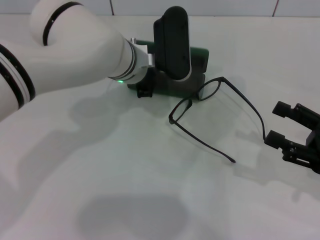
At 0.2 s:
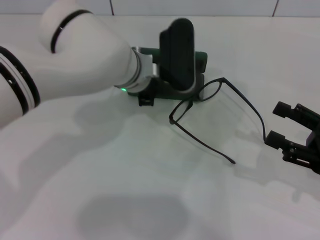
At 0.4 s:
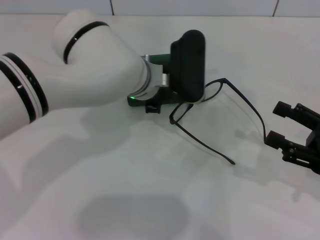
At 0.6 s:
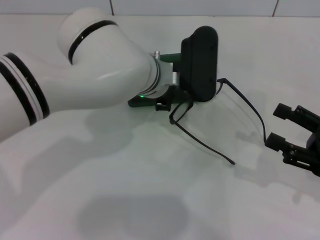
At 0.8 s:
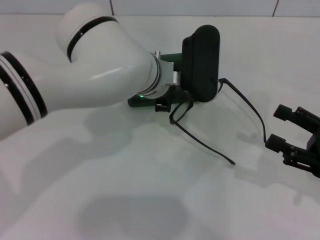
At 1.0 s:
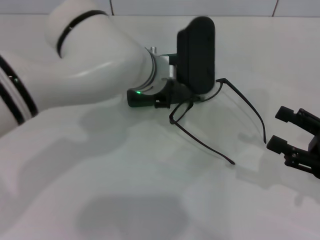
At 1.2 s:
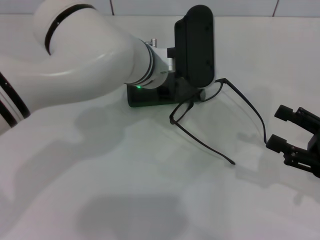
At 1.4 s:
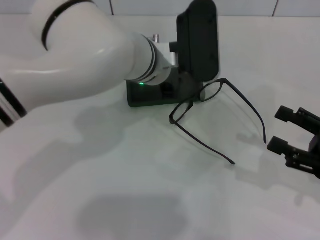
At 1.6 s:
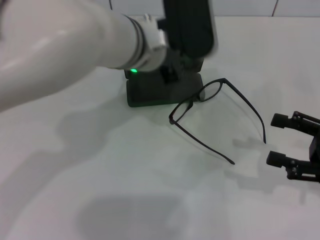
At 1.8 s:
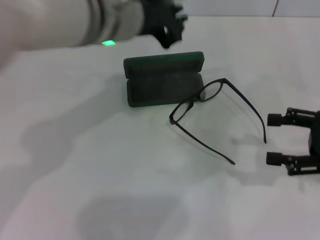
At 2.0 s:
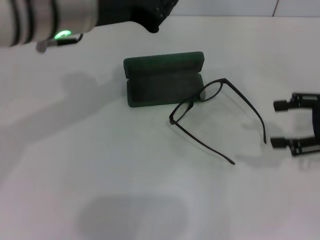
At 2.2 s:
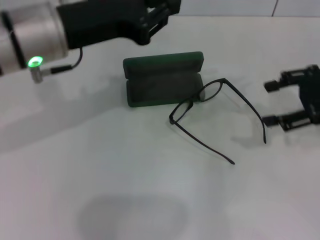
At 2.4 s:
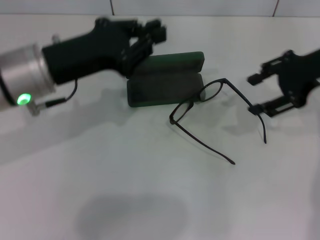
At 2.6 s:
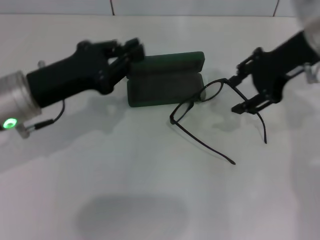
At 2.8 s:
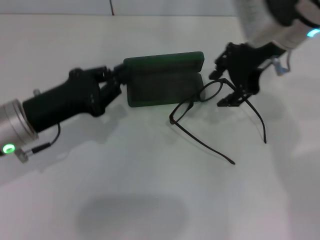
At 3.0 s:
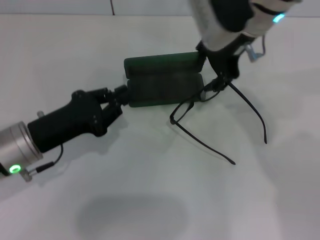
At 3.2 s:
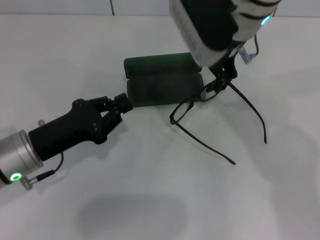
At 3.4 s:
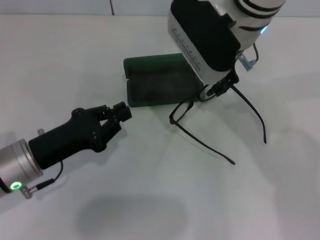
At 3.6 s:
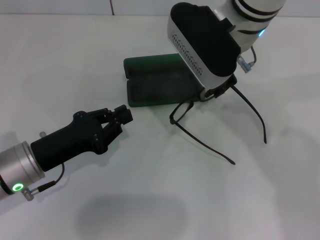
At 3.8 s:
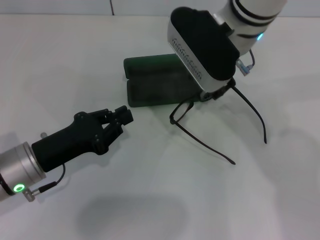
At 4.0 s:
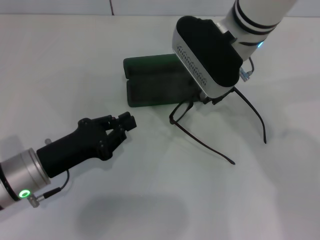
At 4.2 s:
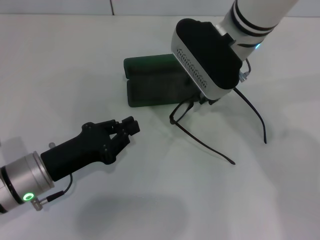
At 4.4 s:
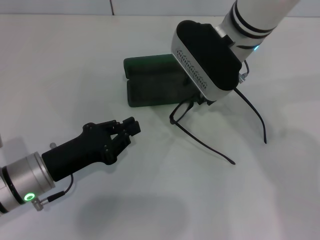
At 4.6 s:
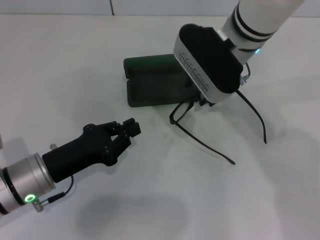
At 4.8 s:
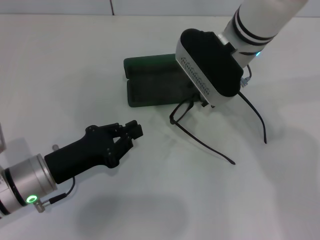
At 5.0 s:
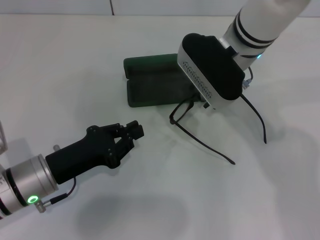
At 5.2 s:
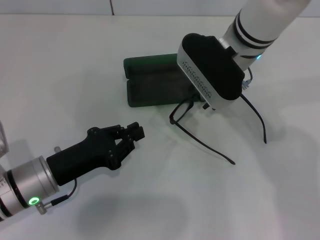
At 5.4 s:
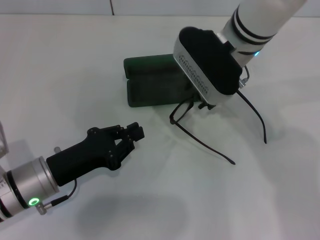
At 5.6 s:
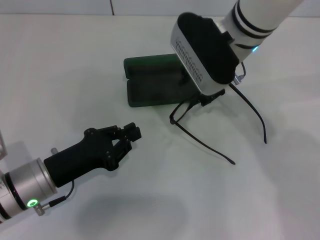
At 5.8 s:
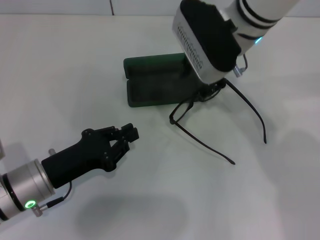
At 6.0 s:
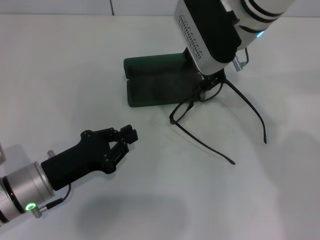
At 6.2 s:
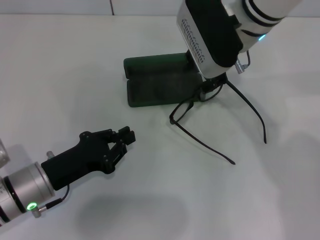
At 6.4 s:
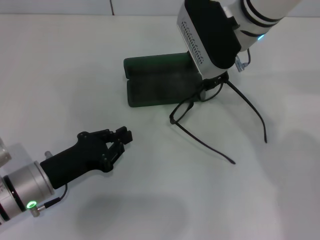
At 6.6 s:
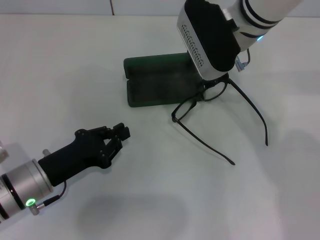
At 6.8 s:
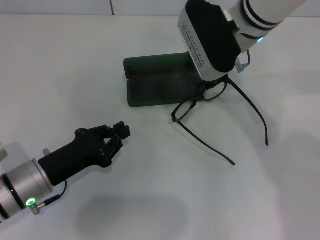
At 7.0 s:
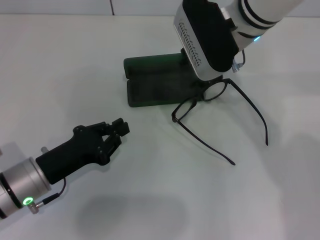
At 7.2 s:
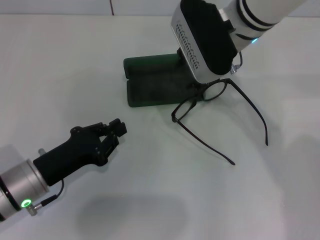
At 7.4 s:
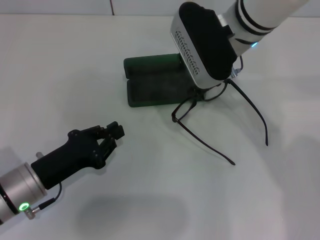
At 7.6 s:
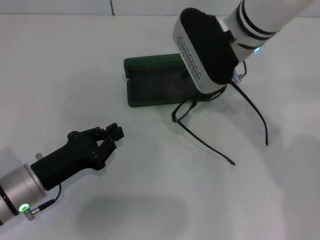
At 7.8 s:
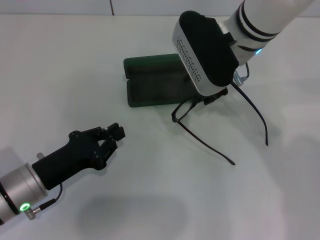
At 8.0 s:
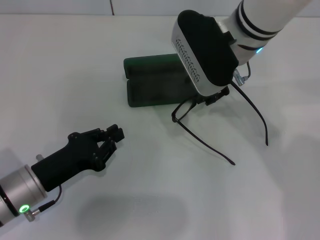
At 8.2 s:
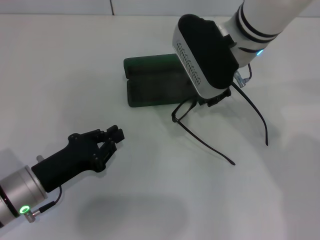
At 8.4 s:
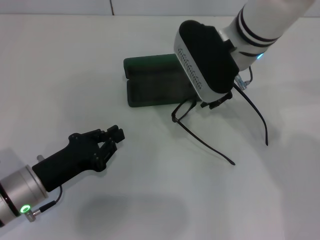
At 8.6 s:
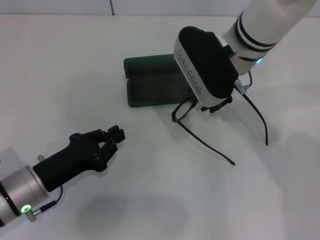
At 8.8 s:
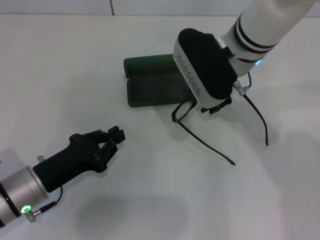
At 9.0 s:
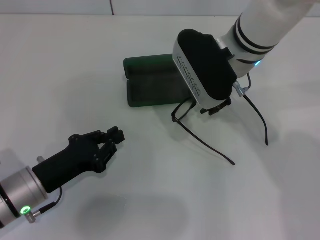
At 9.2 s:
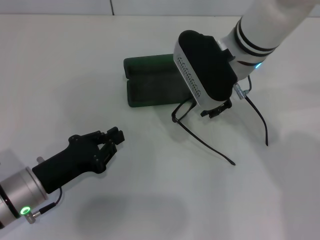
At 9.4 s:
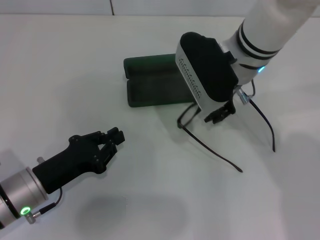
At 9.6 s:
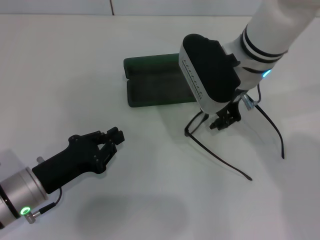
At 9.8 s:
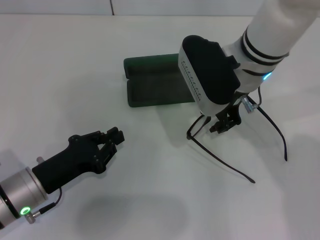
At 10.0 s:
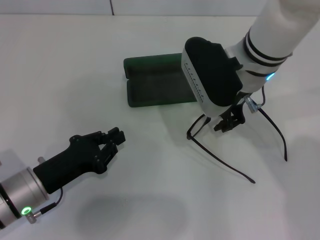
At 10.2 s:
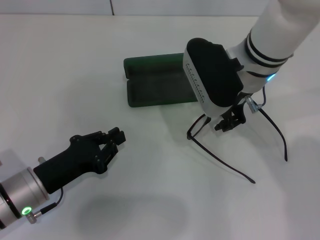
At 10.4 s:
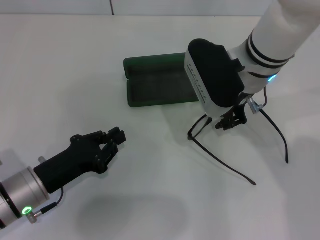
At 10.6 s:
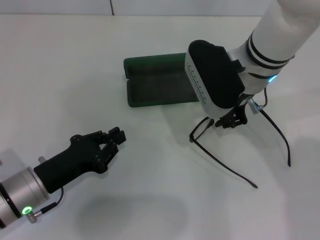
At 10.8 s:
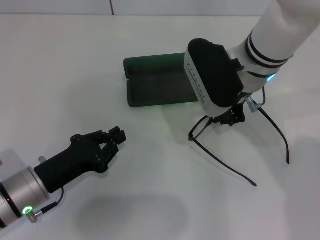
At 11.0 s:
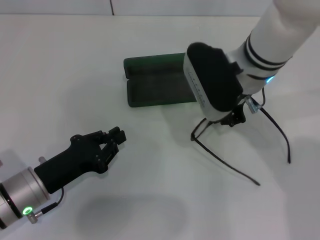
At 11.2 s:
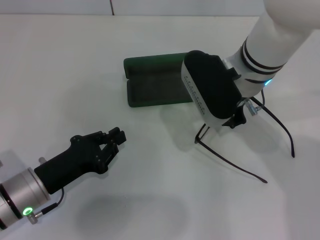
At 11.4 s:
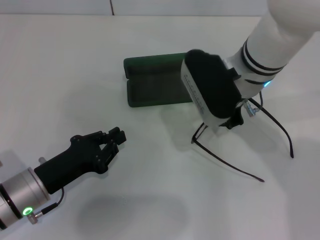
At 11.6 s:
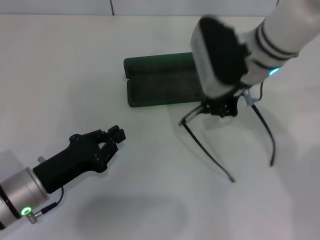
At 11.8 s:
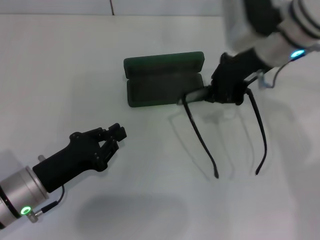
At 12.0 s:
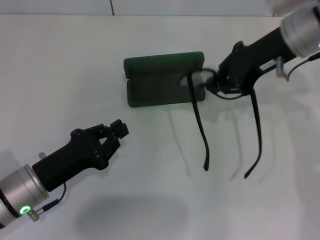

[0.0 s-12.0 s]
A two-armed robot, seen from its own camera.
Step, 0.6 to 11.0 s: Grab the eyeglass frame with your right hand.
0.0 to 1.6 s: The left gripper is displaced upward by approximately 5 cm.
1.6 to 3.0 s: The left gripper shifts some 25 cm to the left, downward and backward; the right gripper goes roughly 30 cm to the left, forward and upward.
3.0 to 4.4 s: The right gripper shifts by some 5 cm.
4.4 to 10.4 s: The grippers stay close to where they were, moving slightly.
10.4 to 12.0 s: The right gripper heads to the right and upward, covering about 10 cm, and closes.

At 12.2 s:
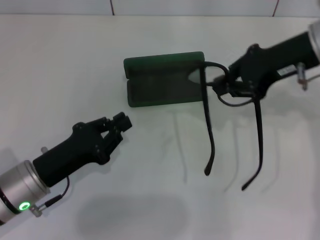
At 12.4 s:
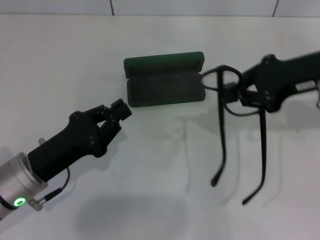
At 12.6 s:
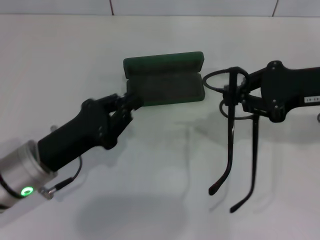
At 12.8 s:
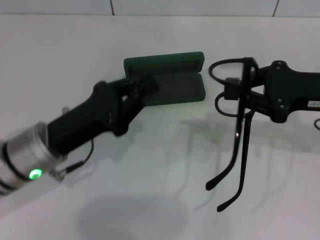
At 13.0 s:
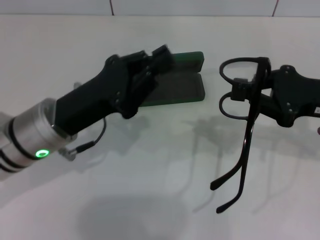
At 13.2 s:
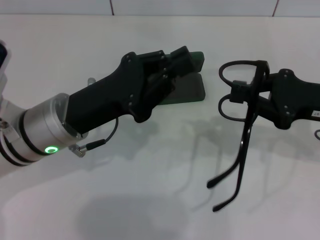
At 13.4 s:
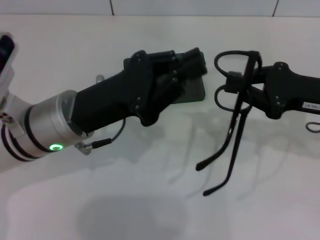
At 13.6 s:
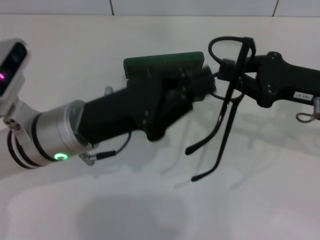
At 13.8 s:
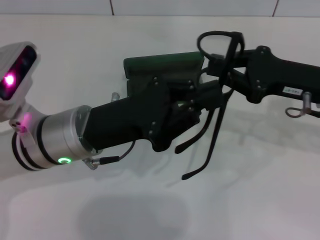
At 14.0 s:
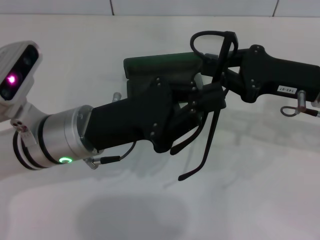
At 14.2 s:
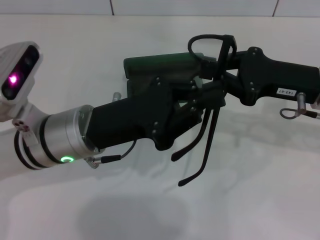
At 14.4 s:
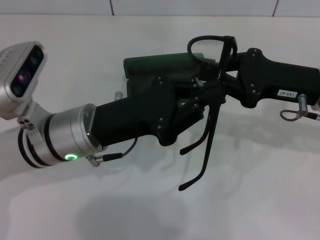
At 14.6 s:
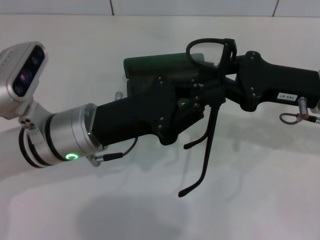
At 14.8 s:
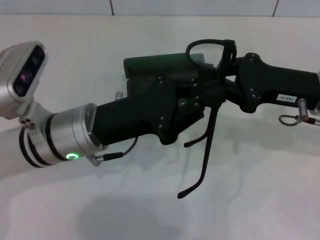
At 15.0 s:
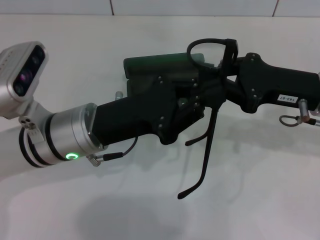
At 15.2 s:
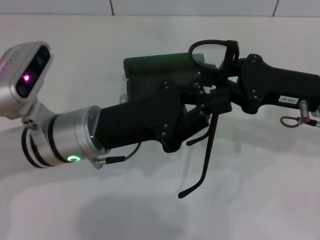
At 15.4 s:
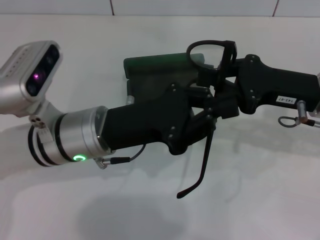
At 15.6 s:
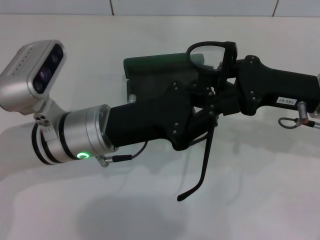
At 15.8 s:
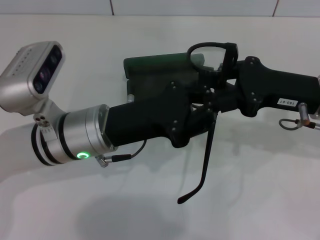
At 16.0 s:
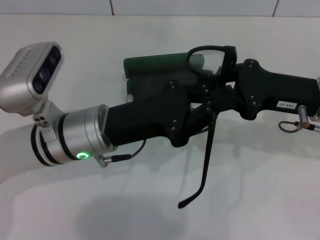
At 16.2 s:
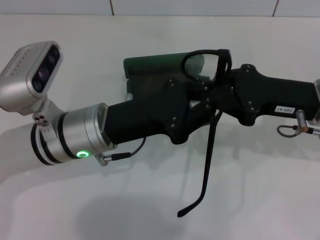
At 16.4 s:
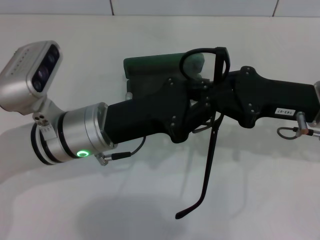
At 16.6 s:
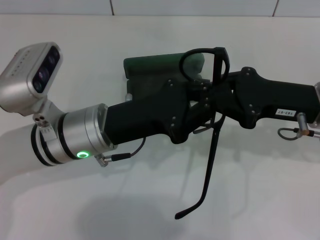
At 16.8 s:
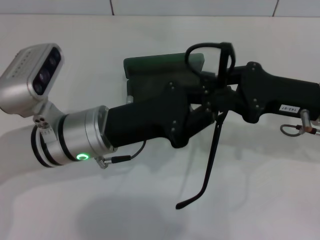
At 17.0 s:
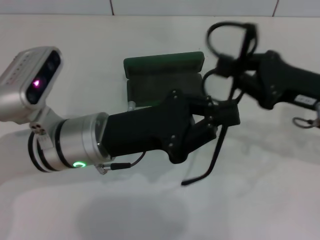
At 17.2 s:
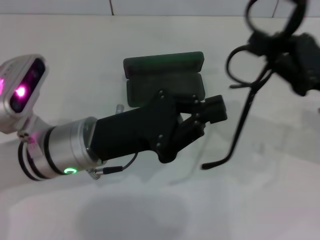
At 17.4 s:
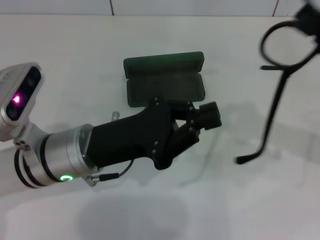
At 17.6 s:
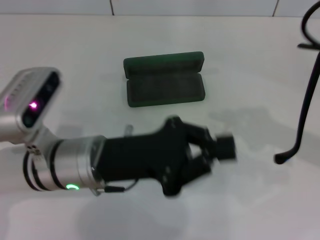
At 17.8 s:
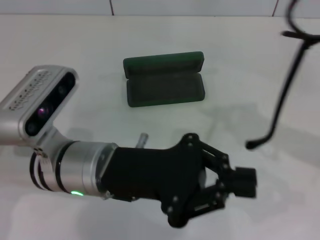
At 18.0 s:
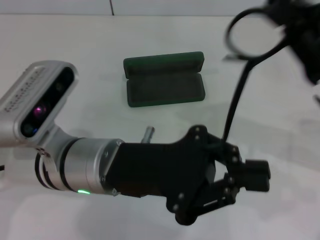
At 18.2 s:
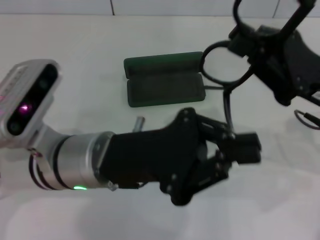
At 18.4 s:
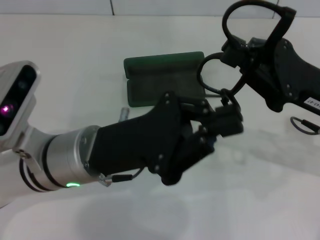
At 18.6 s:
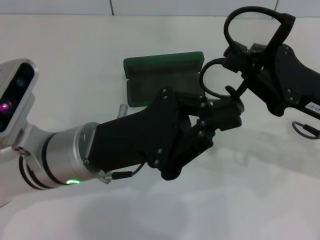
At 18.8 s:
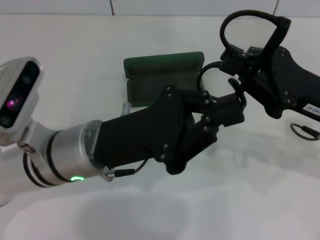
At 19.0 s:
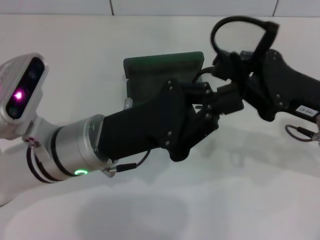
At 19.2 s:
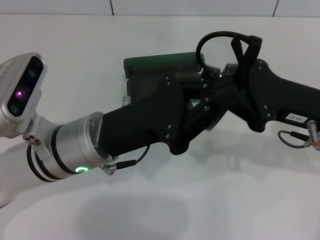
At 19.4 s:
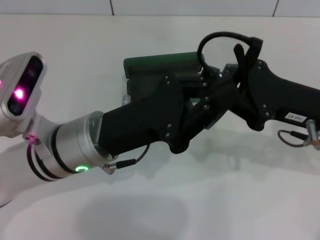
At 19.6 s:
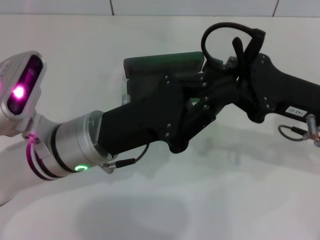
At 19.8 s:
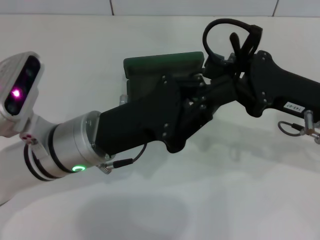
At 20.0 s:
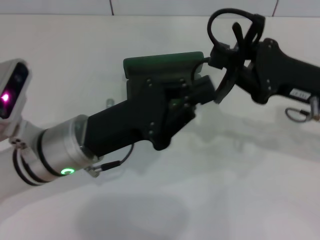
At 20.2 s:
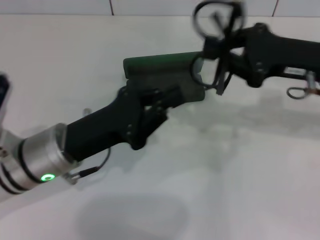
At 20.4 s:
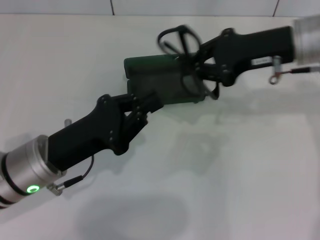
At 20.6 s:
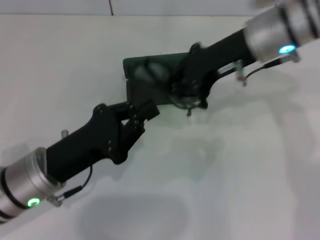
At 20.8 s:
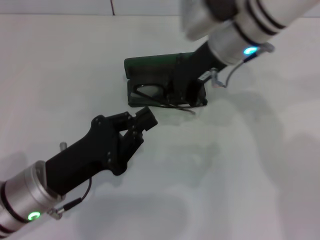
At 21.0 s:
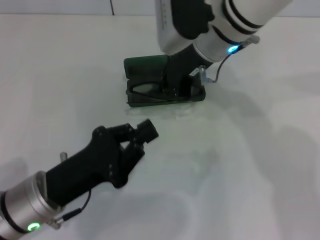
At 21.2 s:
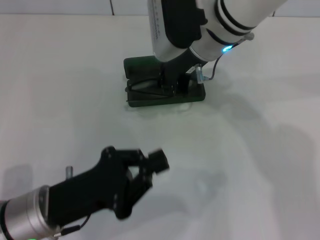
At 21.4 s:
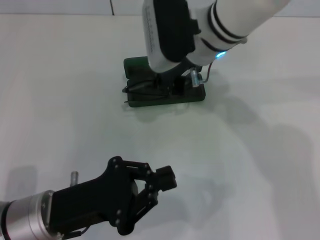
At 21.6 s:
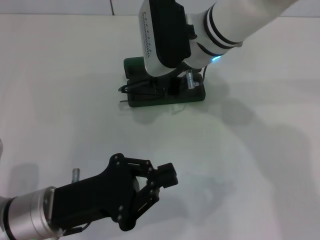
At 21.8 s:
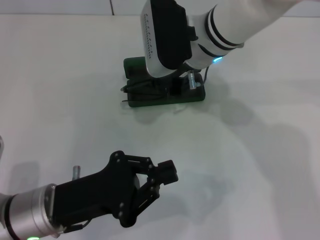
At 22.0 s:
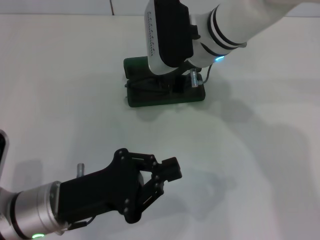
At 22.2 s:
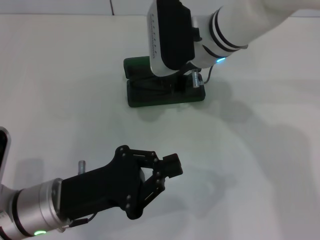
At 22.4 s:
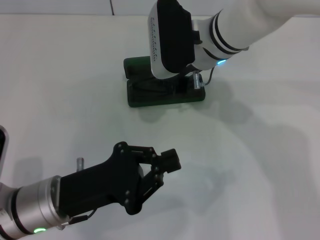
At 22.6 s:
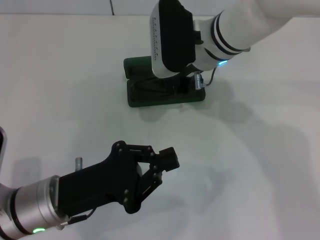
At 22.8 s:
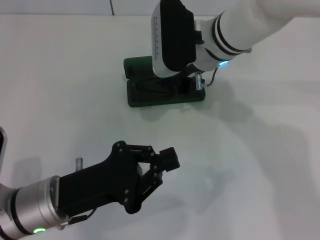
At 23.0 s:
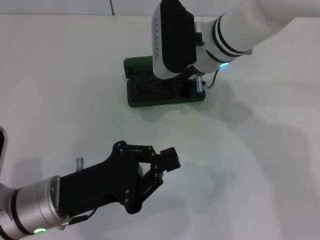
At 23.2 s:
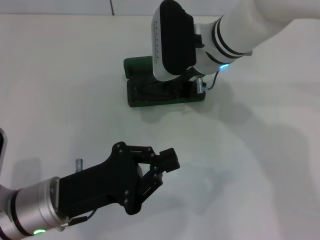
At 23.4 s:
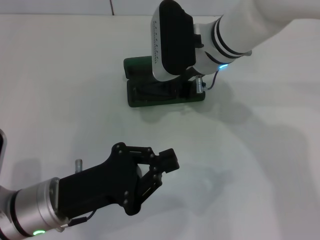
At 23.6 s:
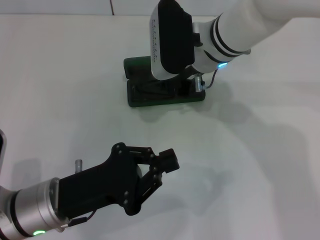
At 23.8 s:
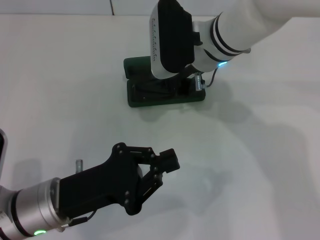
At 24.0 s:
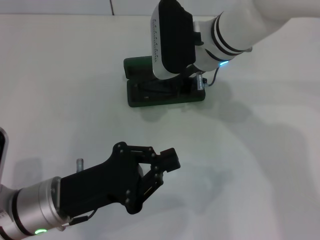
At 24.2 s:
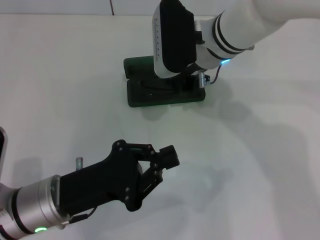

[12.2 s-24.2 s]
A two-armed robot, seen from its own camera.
Step, 12.2 to 19.4 s: Fold the frame with your left hand.
12.2 to 13.8 s: The left gripper heads to the right, upward and forward, covering some 15 cm, while the right gripper shifts roughly 10 cm downward.
13.8 to 15.2 s: There are only small adjustments of the grippers.
15.2 to 16.6 s: Both grippers stay about where they are.
16.6 to 18.2 s: The right gripper moves some 10 cm to the right and comes back.
19.8 to 21.2 s: The right gripper goes about 20 cm to the left, forward and upward, while the left gripper heads backward, to the left and downward, covering some 10 cm.
21.2 to 22.6 s: There are only small adjustments of the grippers.
22.6 to 24.2 s: Neither gripper changes place.
